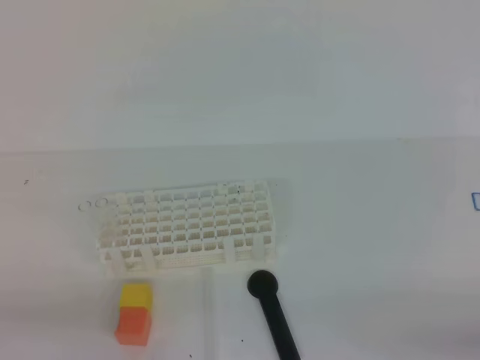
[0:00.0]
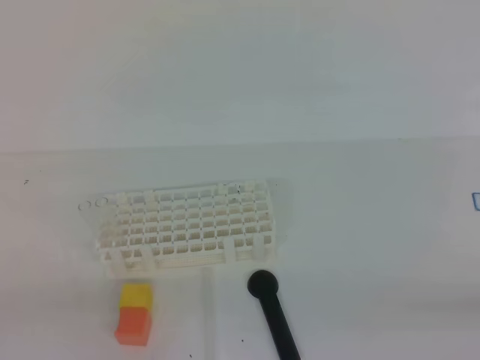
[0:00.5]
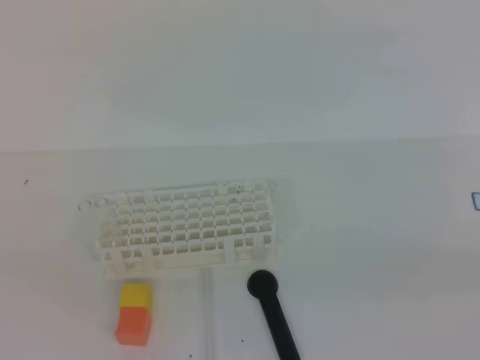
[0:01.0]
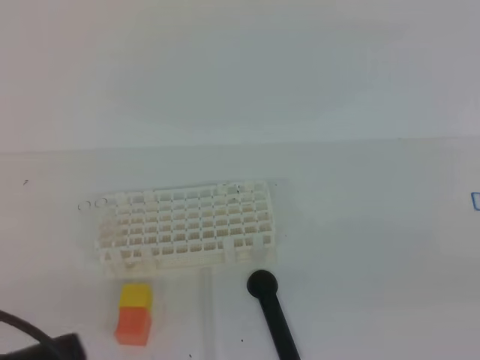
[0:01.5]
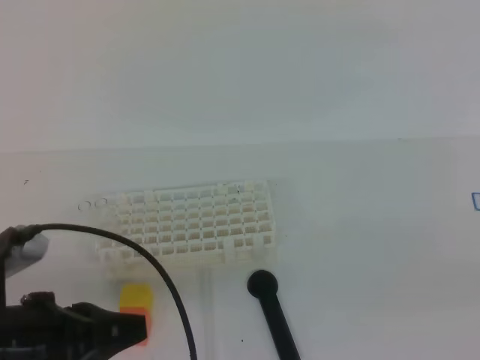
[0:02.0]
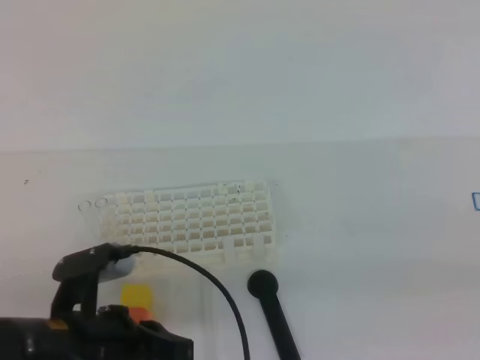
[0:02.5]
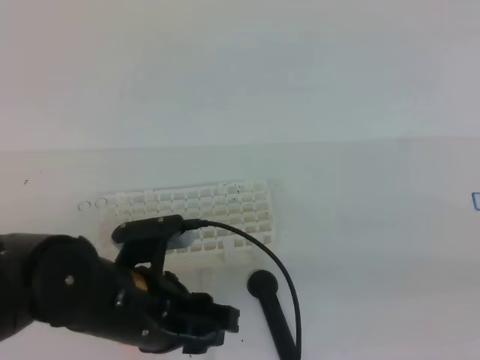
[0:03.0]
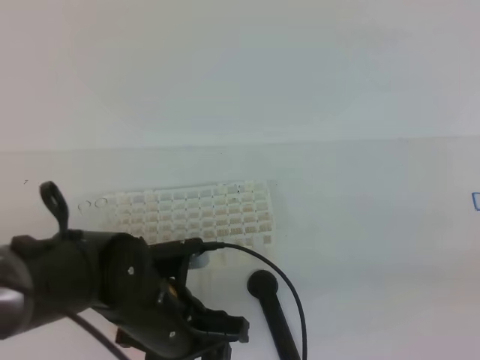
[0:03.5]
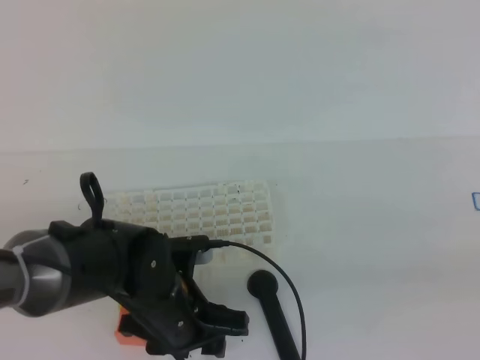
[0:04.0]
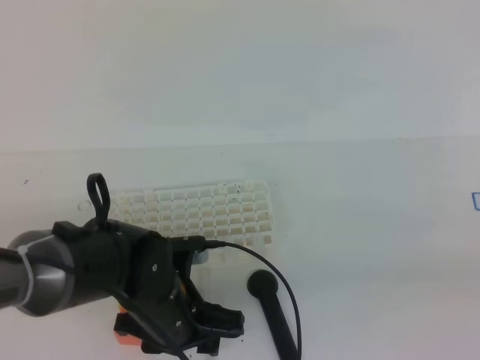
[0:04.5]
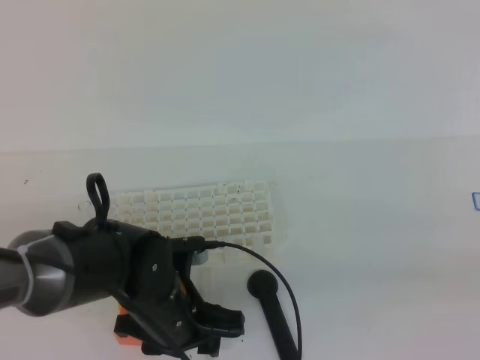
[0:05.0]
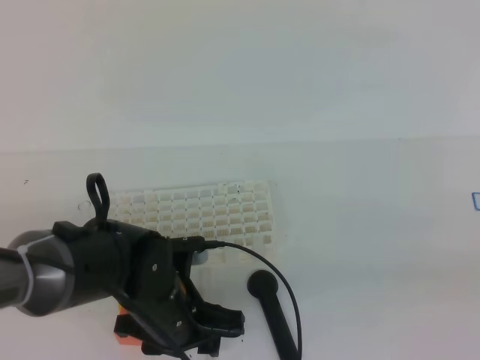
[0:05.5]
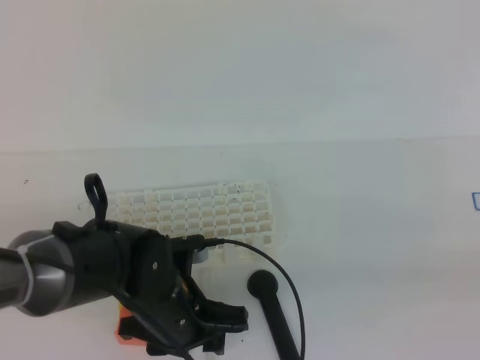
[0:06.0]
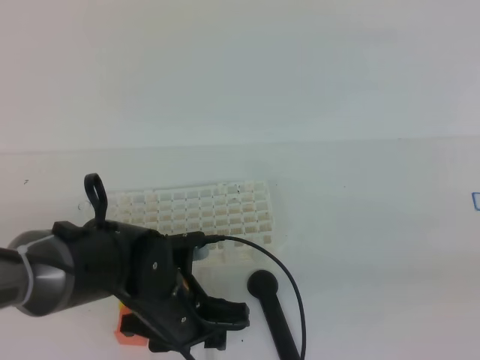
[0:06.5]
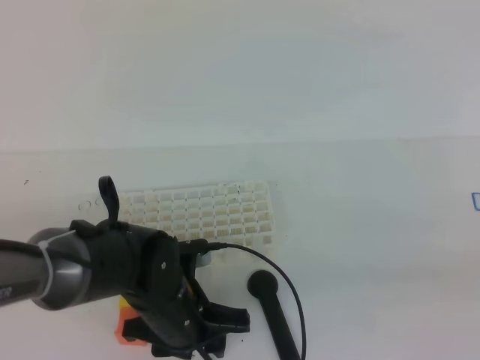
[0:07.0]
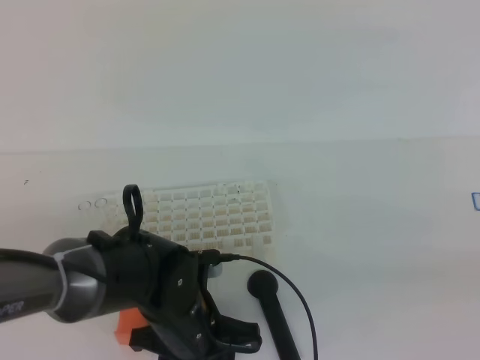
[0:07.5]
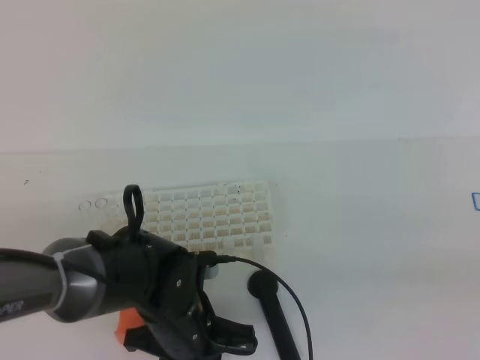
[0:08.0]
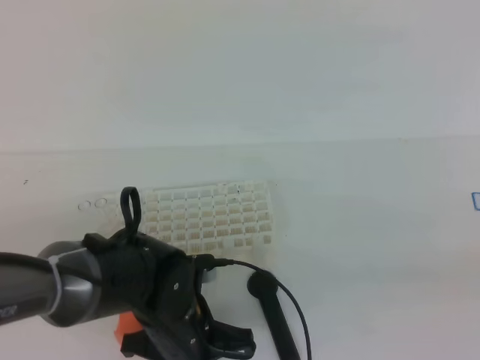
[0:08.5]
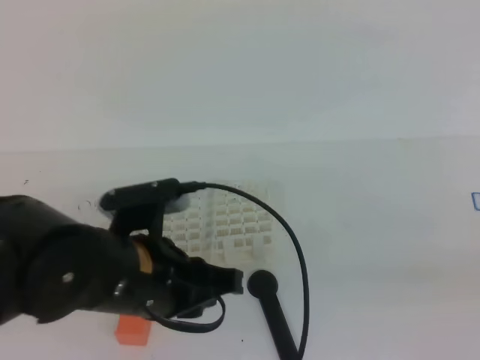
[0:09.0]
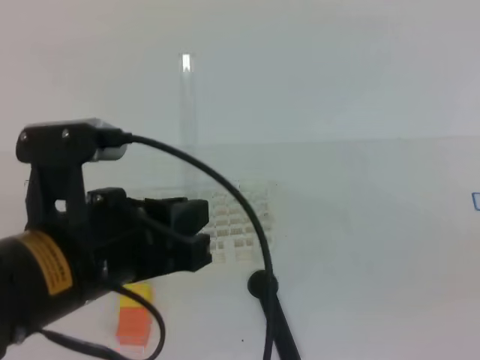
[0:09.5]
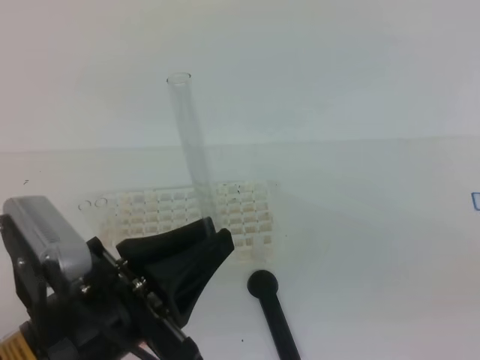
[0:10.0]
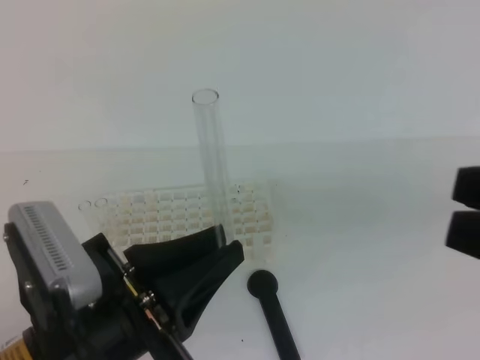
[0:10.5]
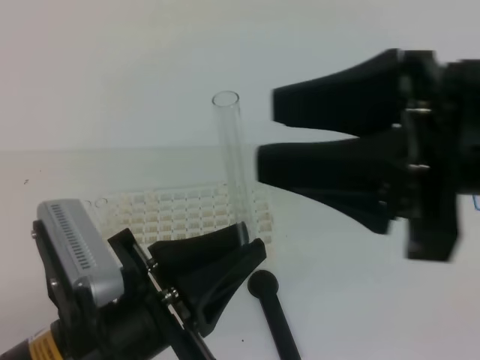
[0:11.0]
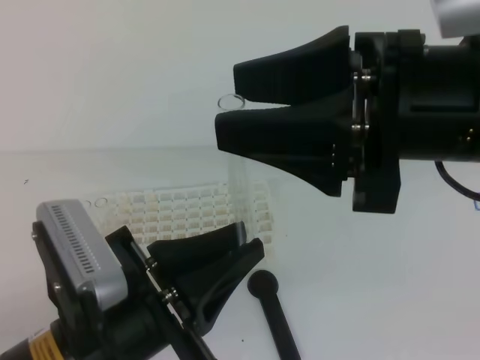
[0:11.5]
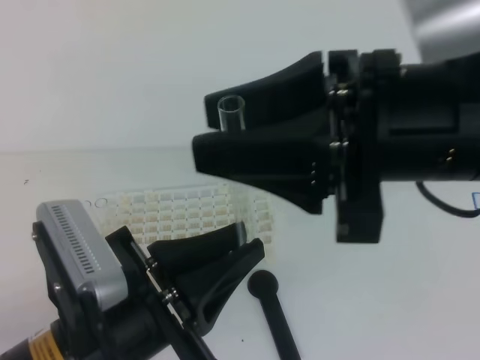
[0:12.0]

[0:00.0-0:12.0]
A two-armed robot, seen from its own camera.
0:00.0 to 0:02.0: The right gripper goes roughly 10 cm upward, while the left gripper goes approximately 10 cm forward and to the right, and moves about 10 cm upward and comes back.
0:02.0 to 0:04.0: The left gripper goes roughly 20 cm to the right, forward and downward, and opens.
0:04.0 to 0:06.0: The two grippers keep their place.
0:06.0 to 0:08.0: The left gripper closes its fingers.
0:08.0 to 0:10.0: The right gripper changes place by roughly 5 cm; the left gripper is displaced upward and backward by roughly 20 cm.
0:10.0 to 0:12.0: The right gripper moves to the left and forward, about 20 cm, and opens up.

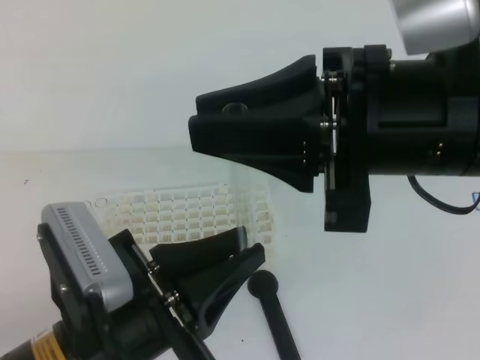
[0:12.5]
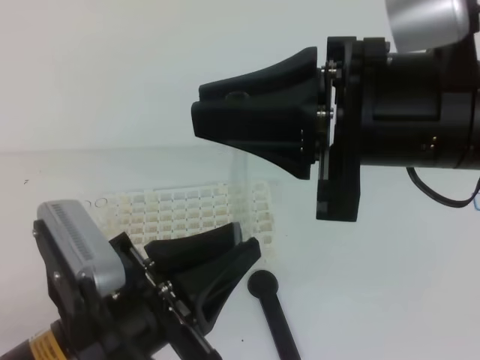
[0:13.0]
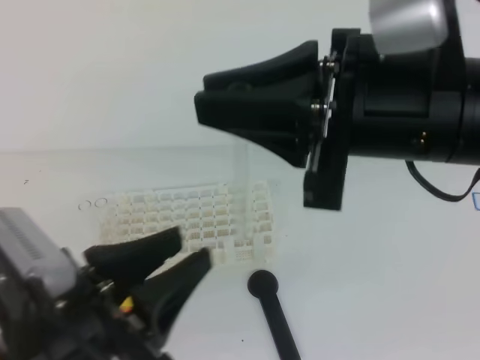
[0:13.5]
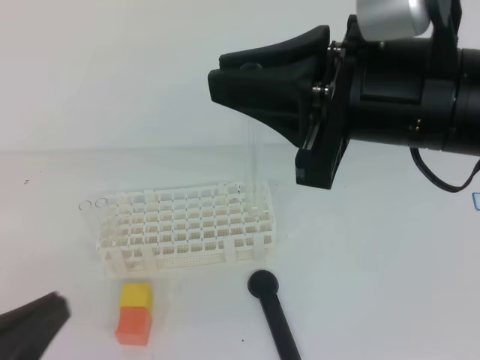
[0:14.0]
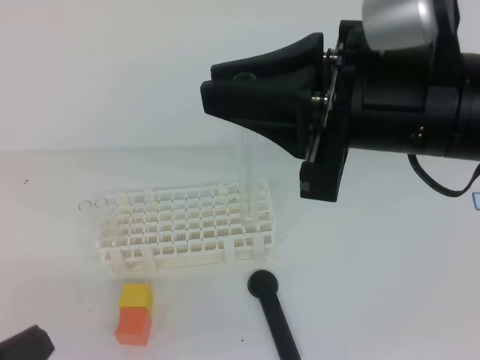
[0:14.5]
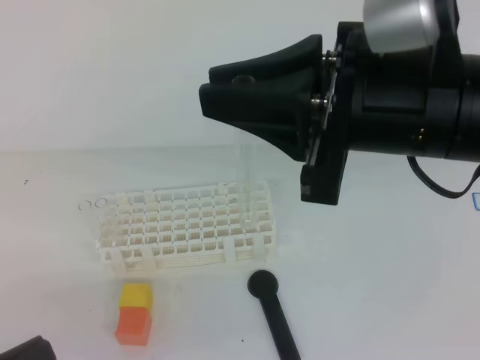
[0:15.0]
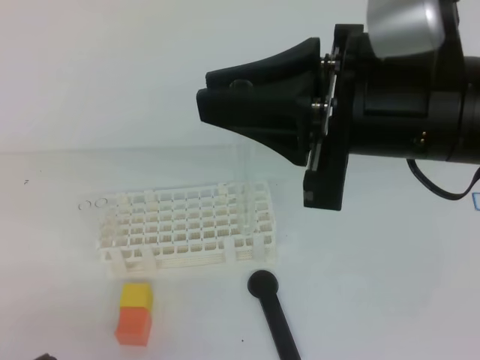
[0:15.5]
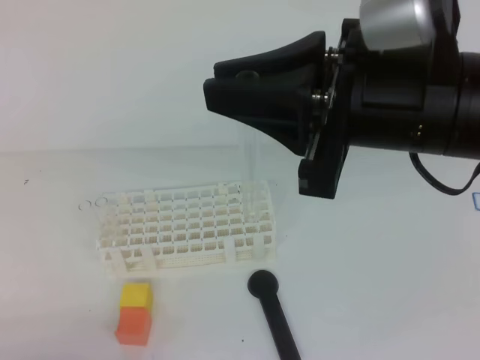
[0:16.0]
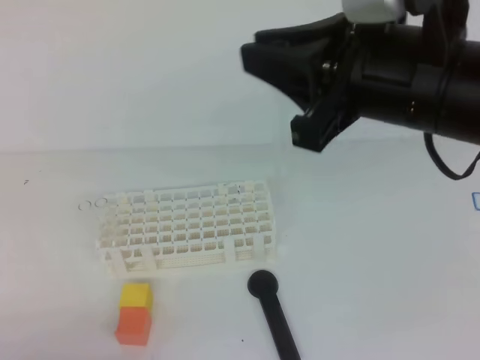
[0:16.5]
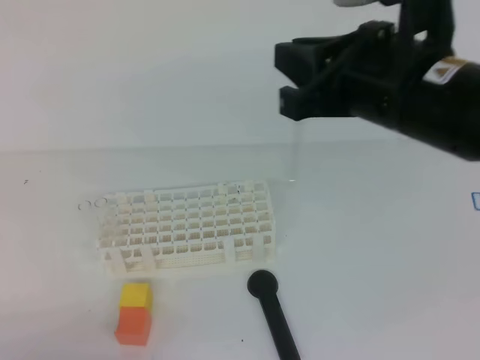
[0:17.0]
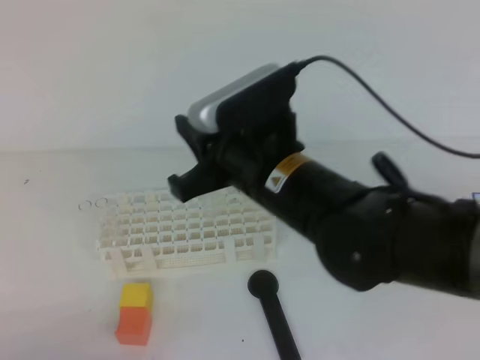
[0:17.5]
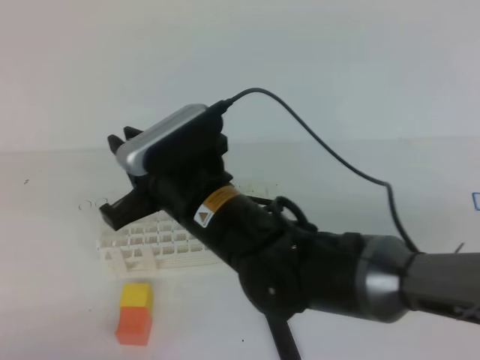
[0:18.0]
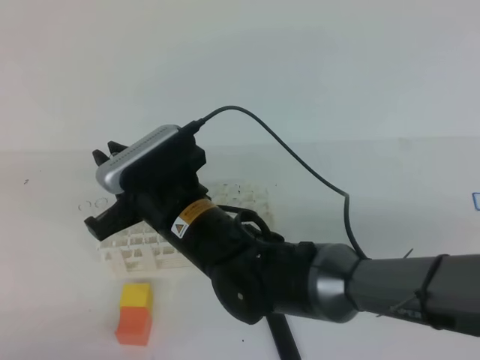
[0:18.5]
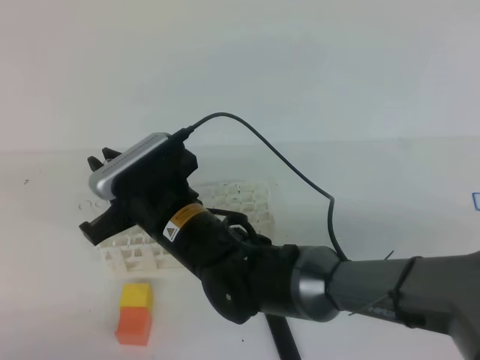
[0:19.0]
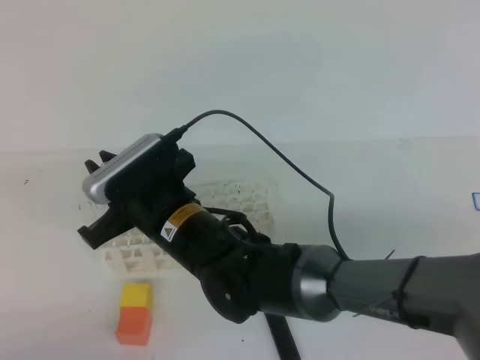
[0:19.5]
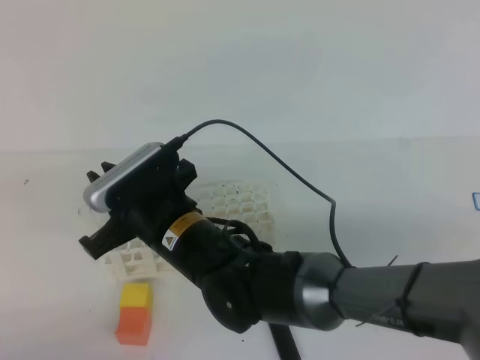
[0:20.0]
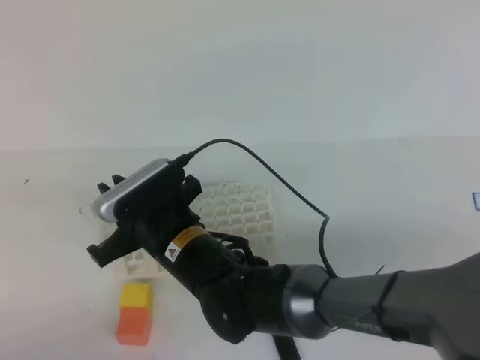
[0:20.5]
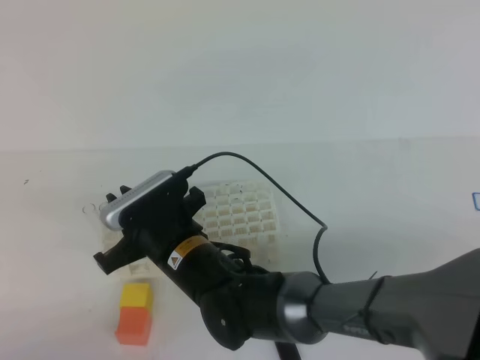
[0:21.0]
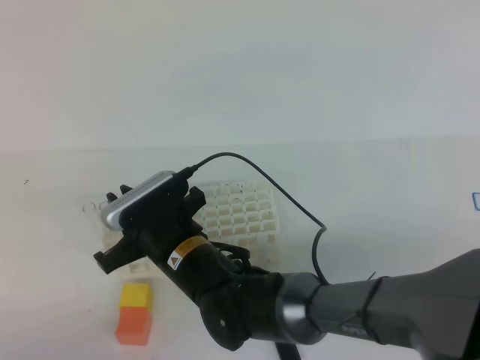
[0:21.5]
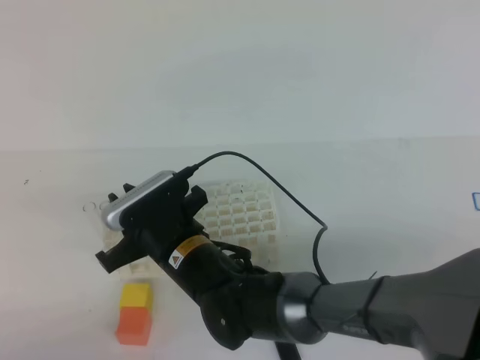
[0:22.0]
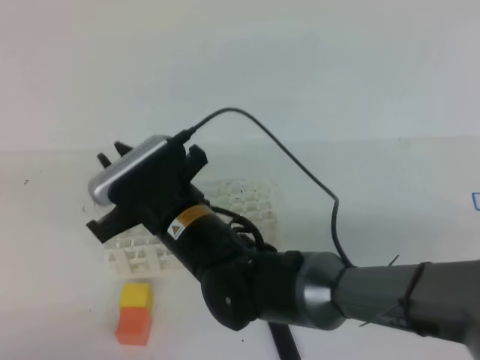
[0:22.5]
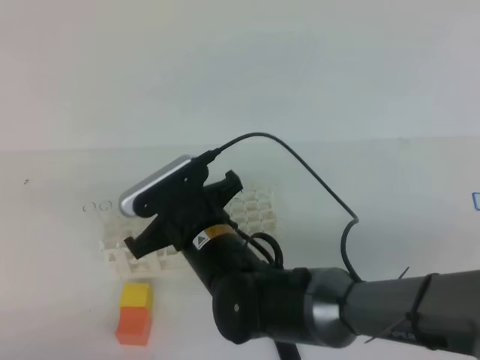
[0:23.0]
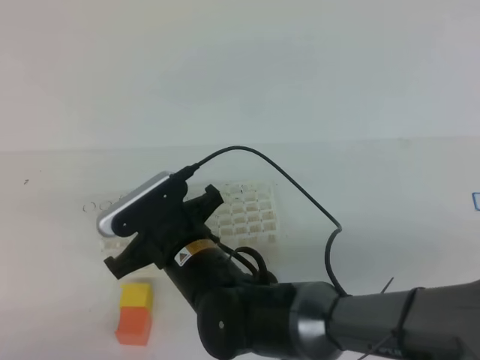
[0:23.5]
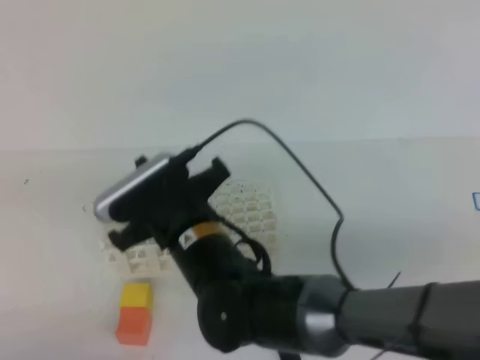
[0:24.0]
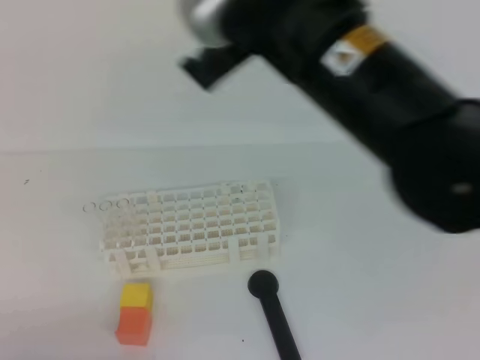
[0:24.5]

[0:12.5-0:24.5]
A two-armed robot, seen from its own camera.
0:12.5 to 0:14.5: The left gripper heads to the left and backward, covering approximately 15 cm, and opens, then closes again.
0:14.5 to 0:16.5: The left gripper goes roughly 10 cm downward.
0:16.5 to 0:18.5: The right gripper goes roughly 25 cm to the left and downward.
0:18.5 to 0:20.5: There are only small adjustments of the grippers.
0:20.5 to 0:22.5: The grippers move only a little.
0:22.5 to 0:24.5: The right gripper shifts some 25 cm upward and to the right, and closes up.

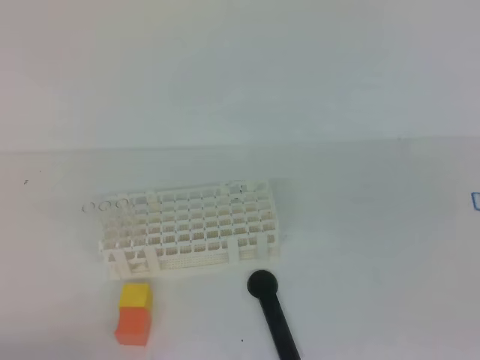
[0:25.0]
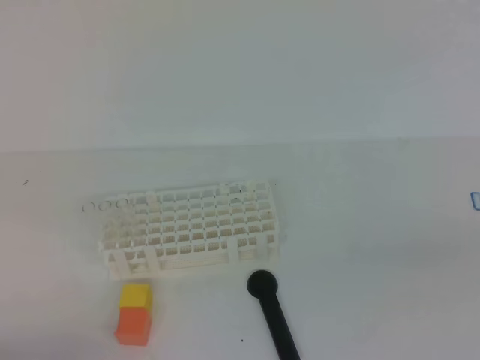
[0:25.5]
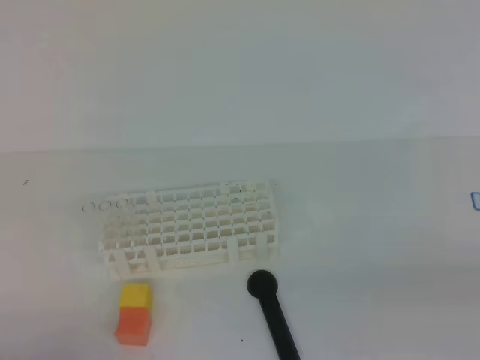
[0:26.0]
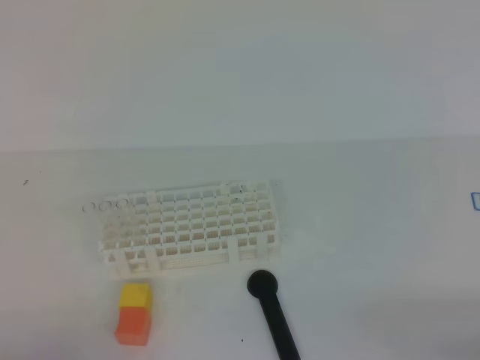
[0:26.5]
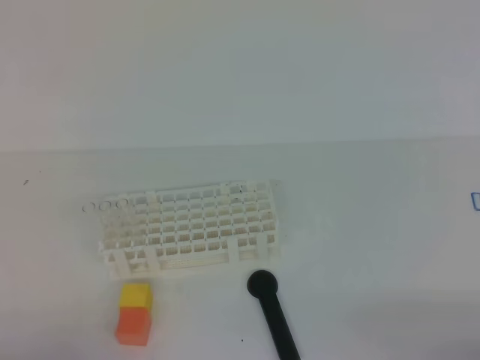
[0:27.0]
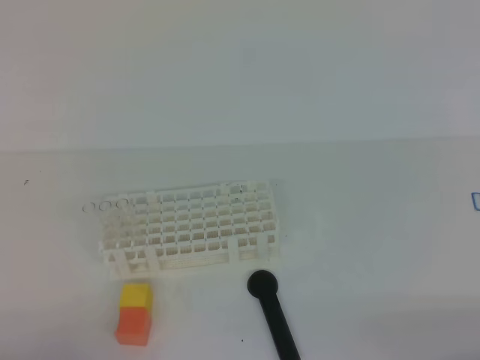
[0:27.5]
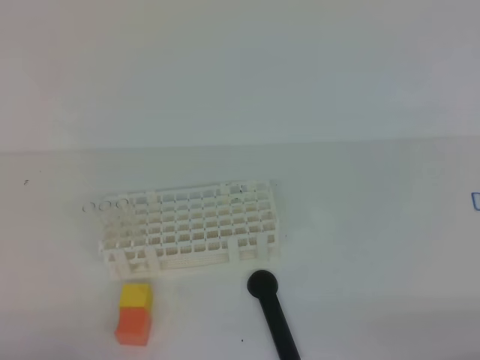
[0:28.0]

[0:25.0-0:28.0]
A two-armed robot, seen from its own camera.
0:25.0 to 0:26.5: The right gripper is displaced downward, backward and to the right by some 20 cm.
